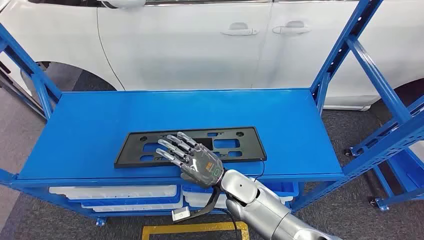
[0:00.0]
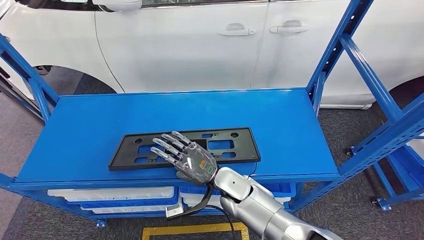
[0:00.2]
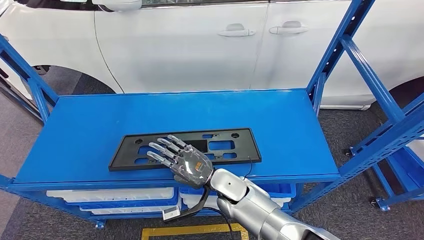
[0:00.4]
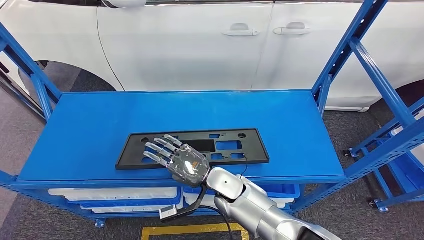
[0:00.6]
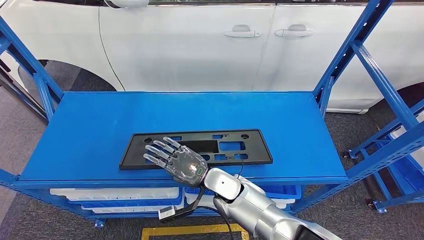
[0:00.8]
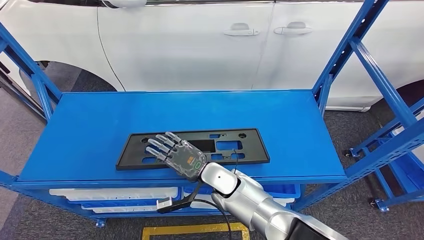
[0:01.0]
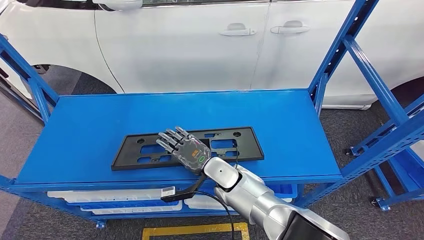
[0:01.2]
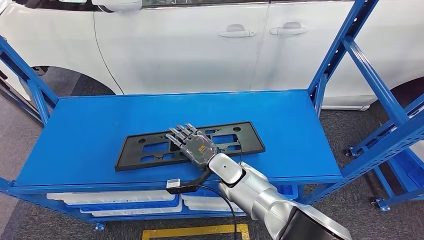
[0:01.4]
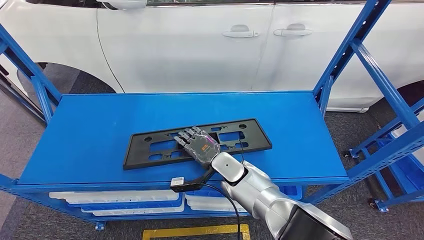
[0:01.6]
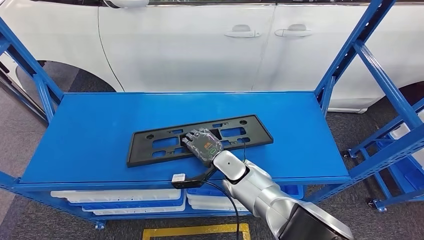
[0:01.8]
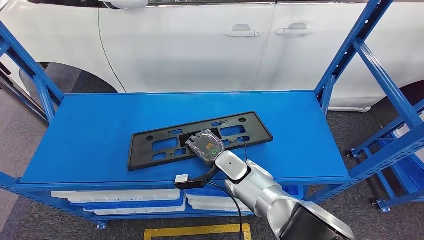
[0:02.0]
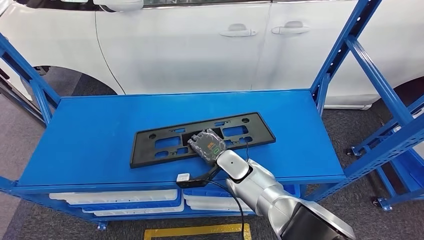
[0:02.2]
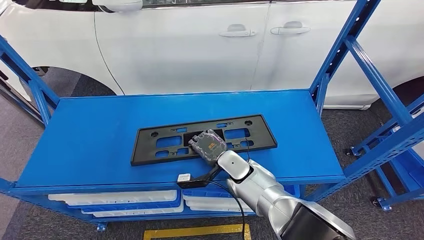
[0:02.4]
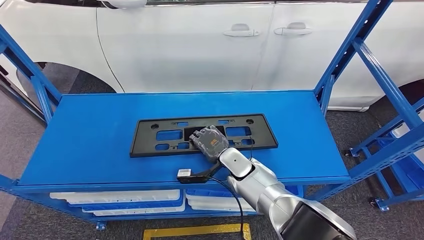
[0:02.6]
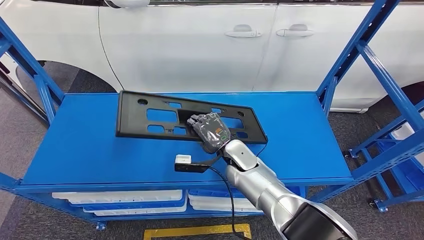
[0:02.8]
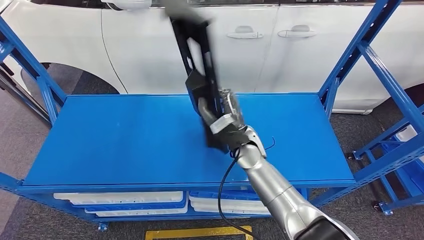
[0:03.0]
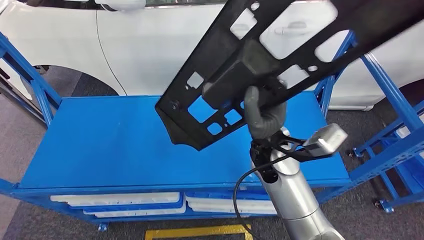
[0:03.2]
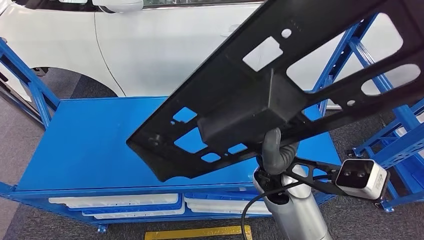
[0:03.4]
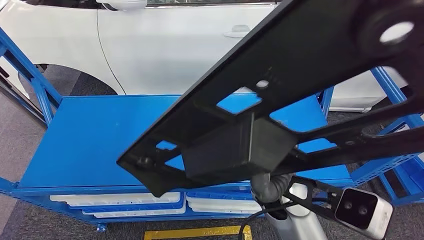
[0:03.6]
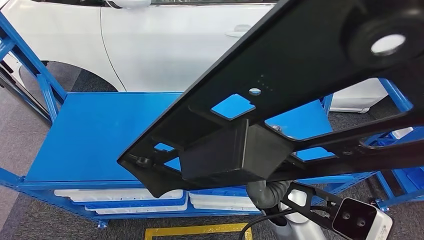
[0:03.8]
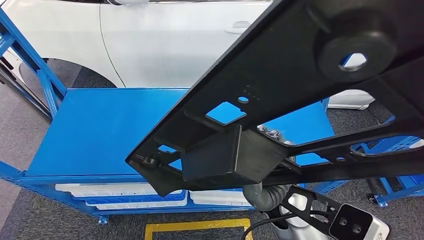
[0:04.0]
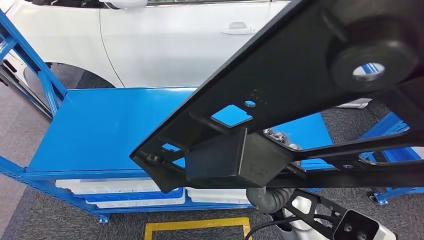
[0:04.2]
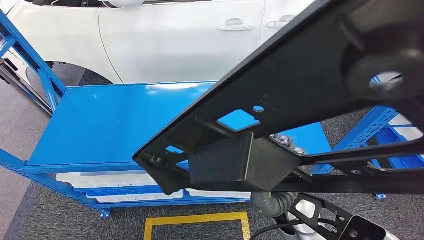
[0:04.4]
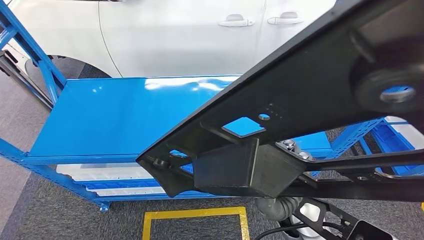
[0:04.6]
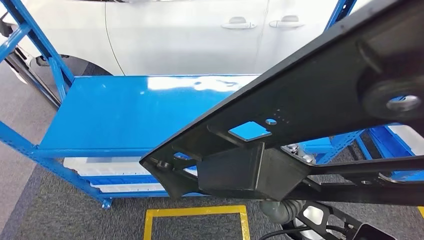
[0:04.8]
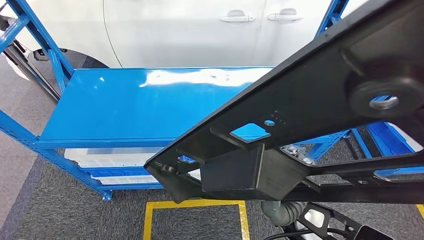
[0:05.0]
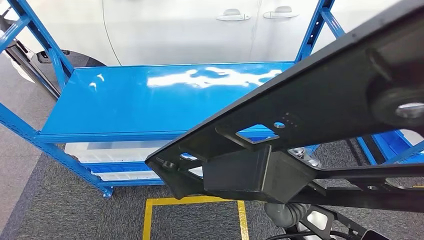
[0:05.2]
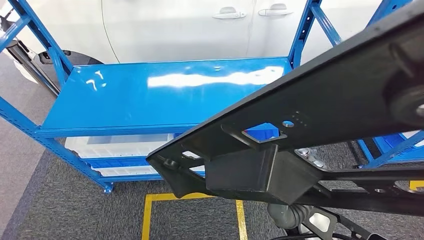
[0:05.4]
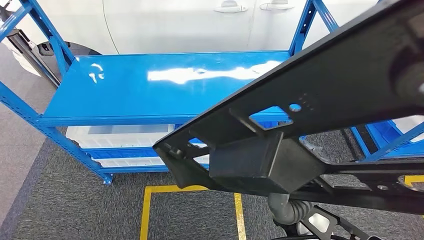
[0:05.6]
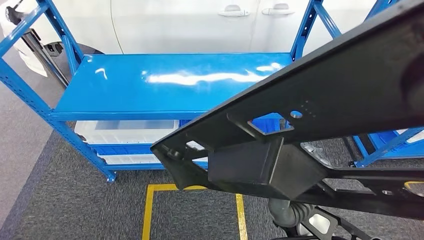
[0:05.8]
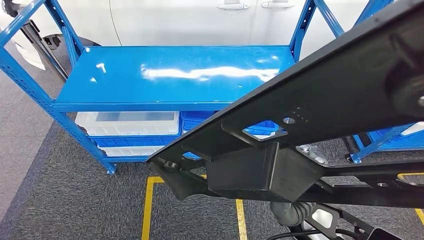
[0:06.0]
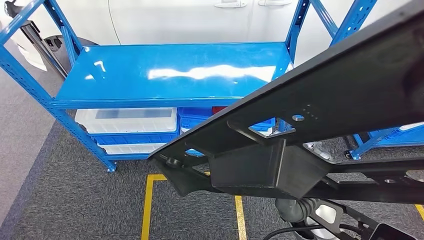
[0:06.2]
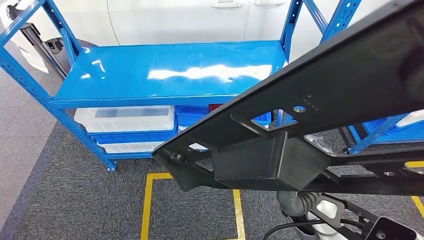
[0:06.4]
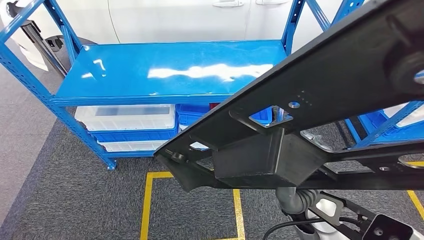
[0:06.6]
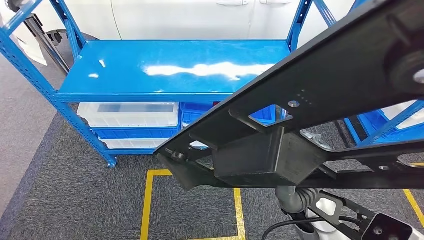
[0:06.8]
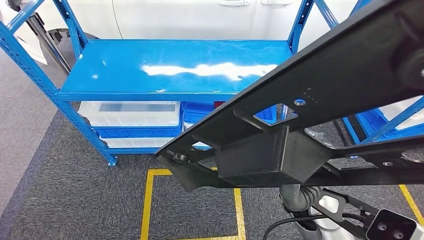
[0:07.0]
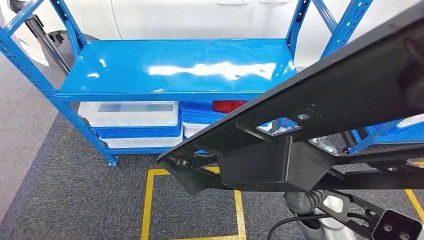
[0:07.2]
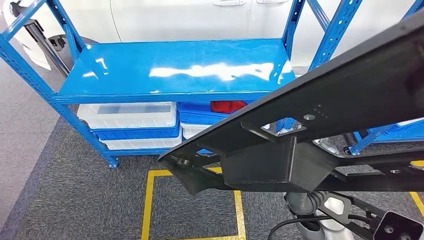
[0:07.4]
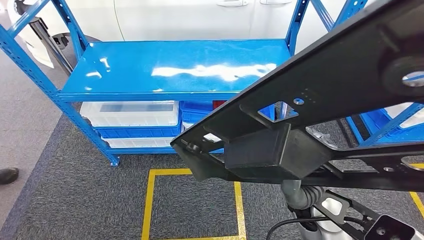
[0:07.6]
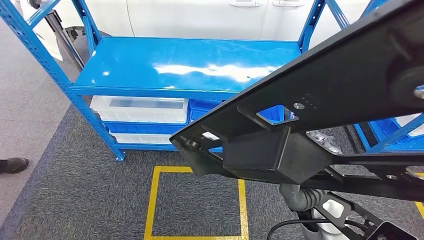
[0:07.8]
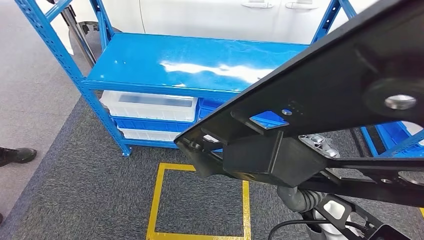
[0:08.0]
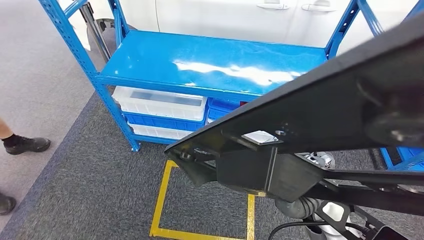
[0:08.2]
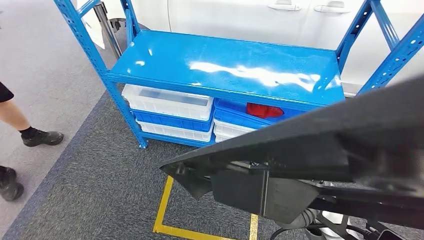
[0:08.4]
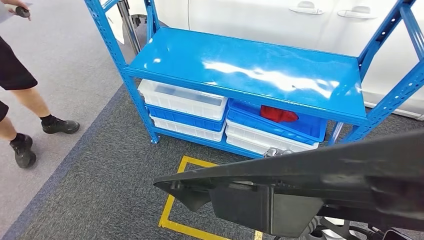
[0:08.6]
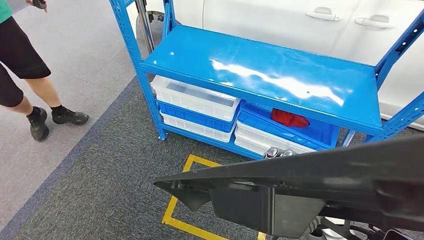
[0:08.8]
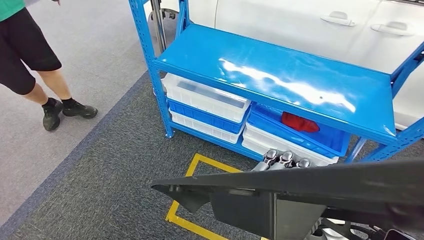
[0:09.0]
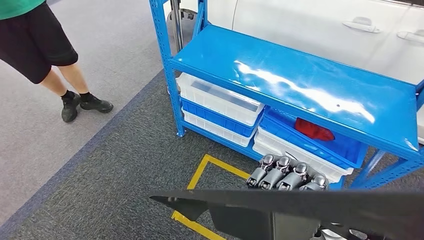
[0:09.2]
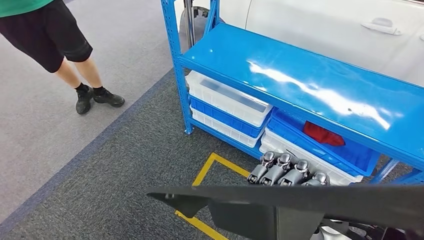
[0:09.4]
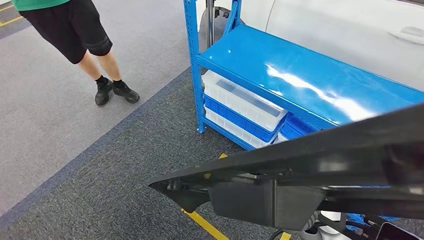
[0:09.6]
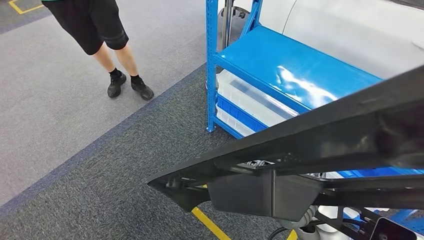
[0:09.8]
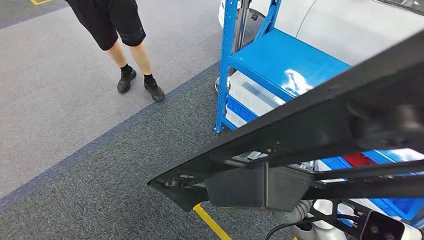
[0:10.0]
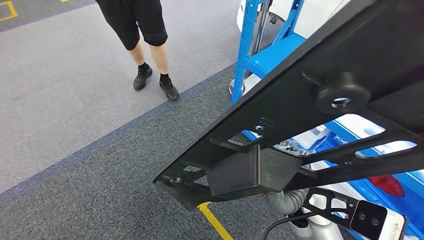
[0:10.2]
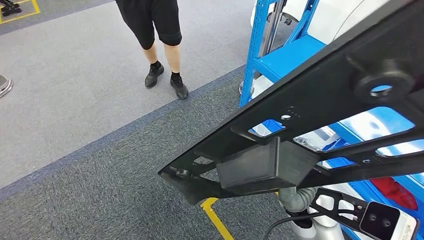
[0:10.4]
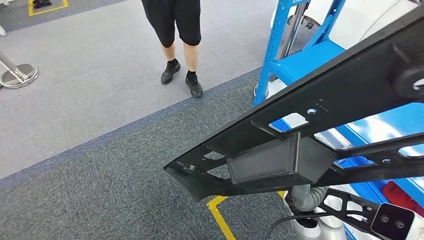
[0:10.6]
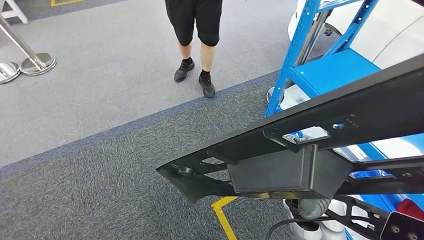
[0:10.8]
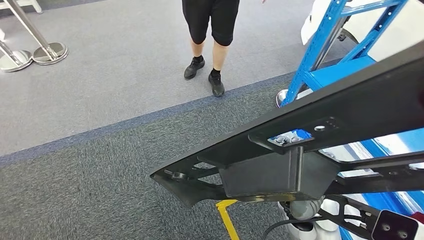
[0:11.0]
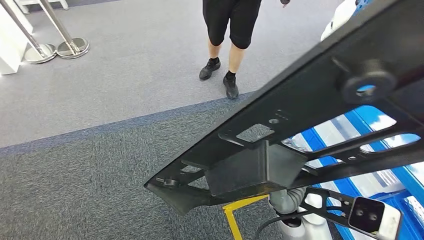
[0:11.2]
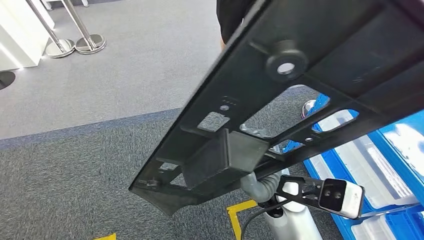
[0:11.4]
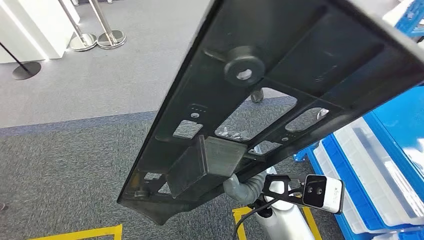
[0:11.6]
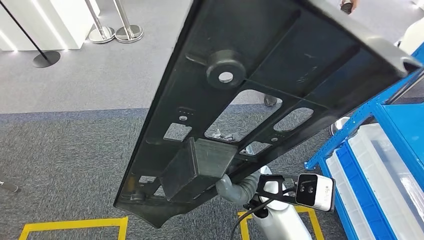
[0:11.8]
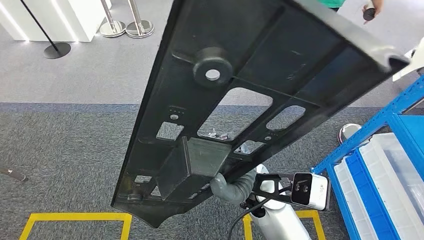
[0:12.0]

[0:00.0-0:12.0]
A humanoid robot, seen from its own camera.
Step, 0:00.0 to 0:03.6: Pick up the large material from the shelf.

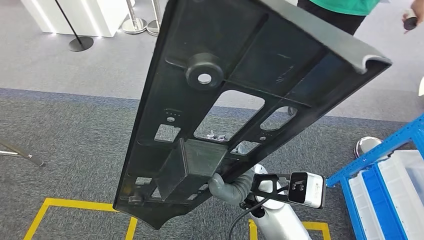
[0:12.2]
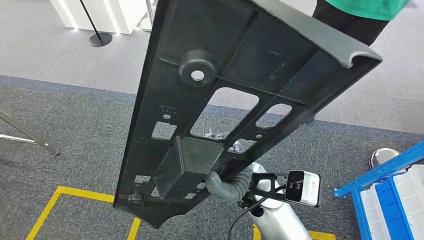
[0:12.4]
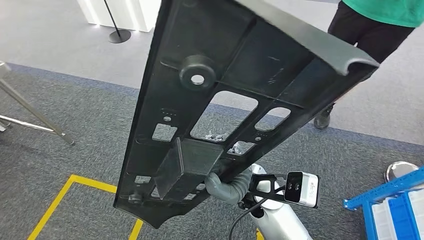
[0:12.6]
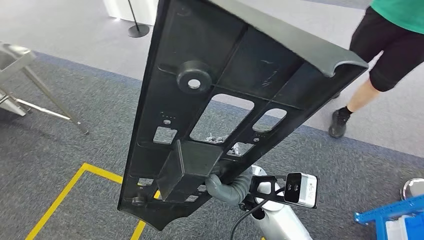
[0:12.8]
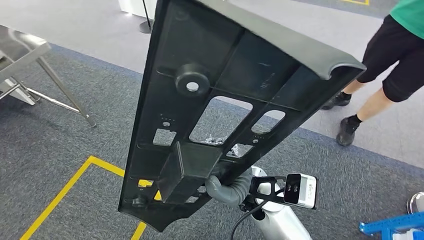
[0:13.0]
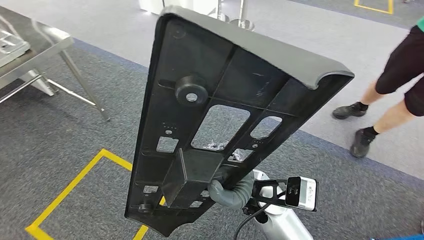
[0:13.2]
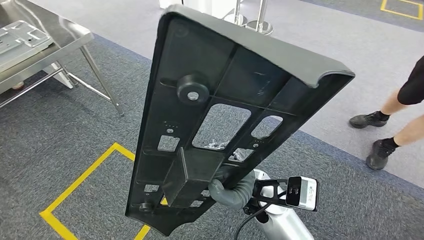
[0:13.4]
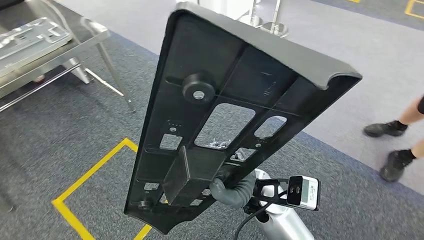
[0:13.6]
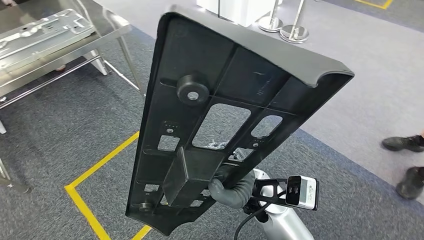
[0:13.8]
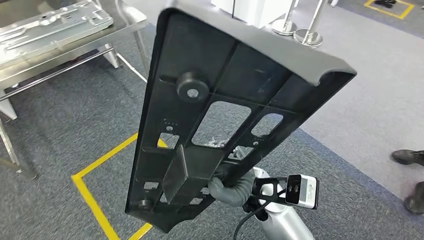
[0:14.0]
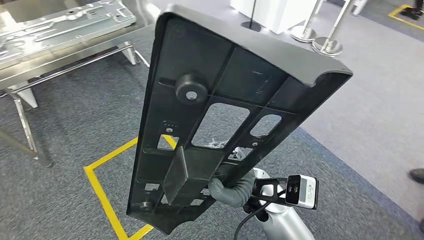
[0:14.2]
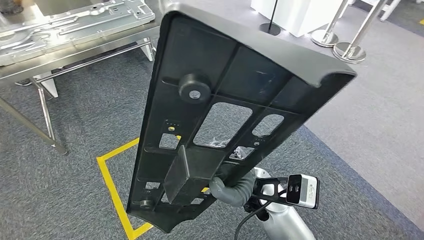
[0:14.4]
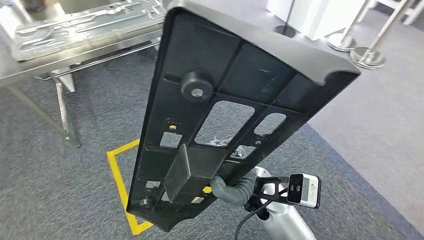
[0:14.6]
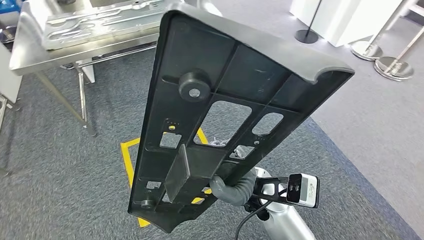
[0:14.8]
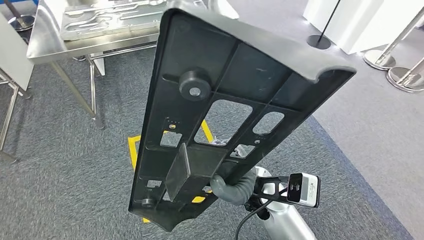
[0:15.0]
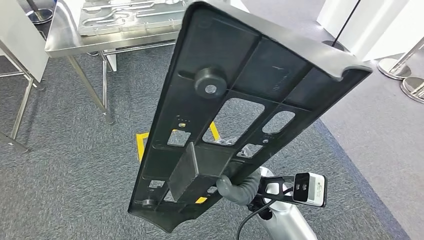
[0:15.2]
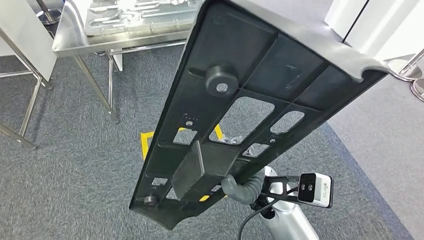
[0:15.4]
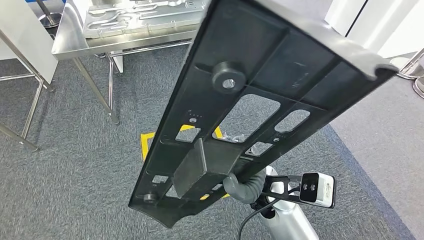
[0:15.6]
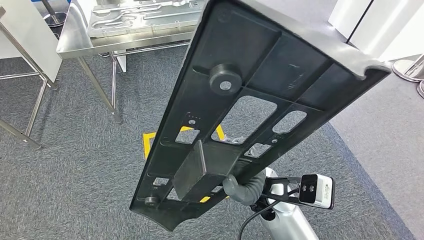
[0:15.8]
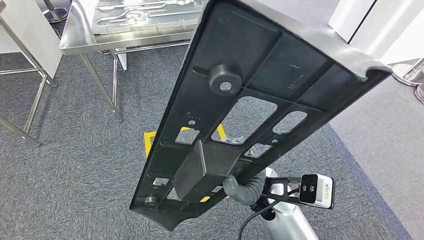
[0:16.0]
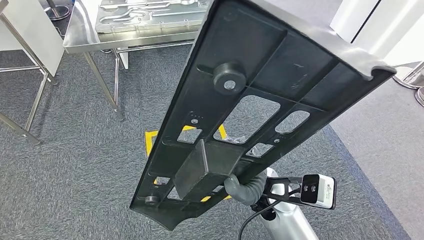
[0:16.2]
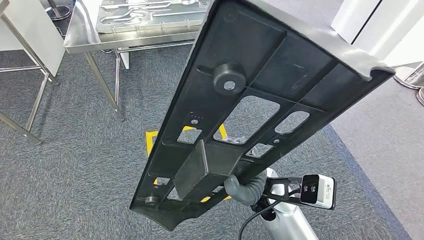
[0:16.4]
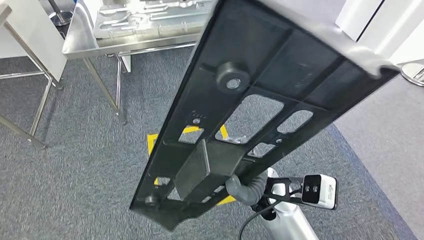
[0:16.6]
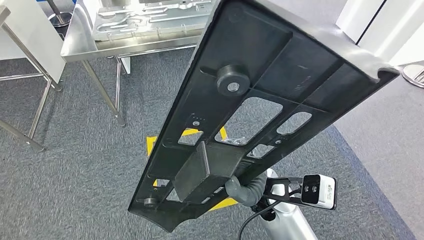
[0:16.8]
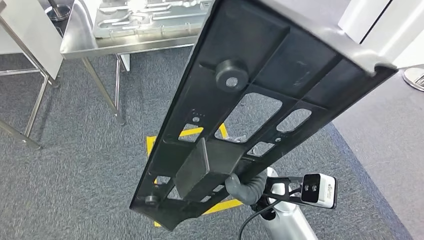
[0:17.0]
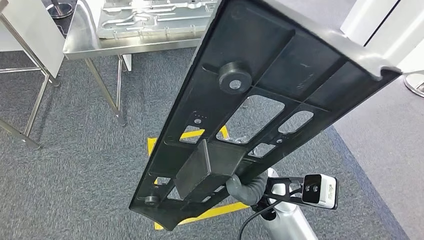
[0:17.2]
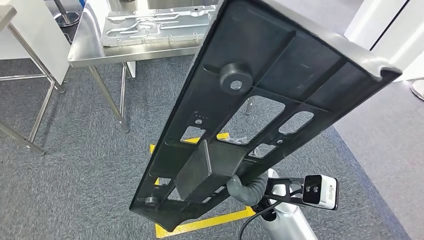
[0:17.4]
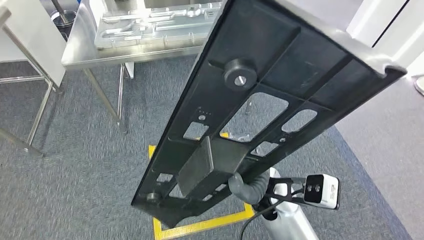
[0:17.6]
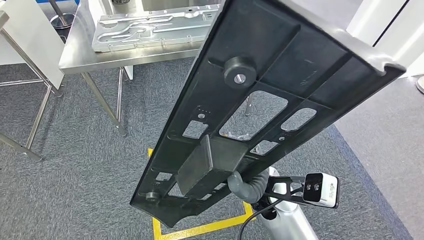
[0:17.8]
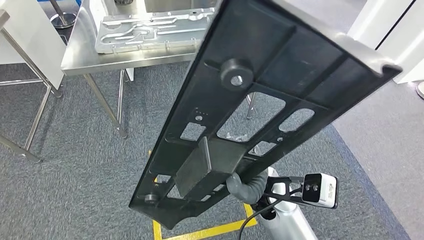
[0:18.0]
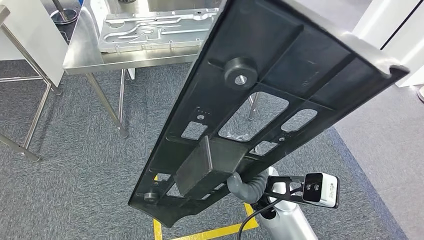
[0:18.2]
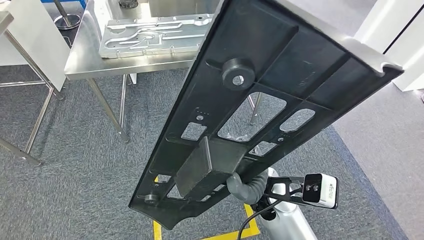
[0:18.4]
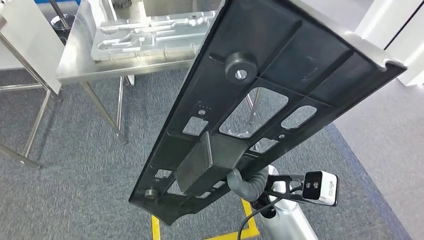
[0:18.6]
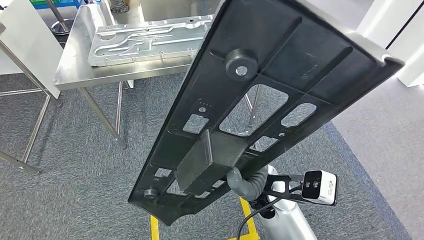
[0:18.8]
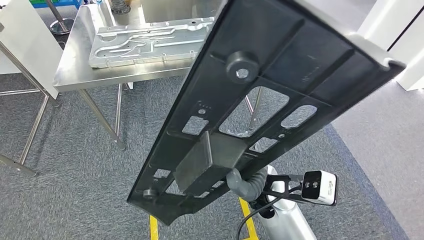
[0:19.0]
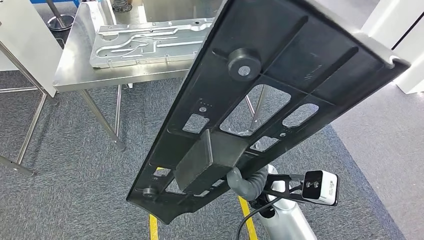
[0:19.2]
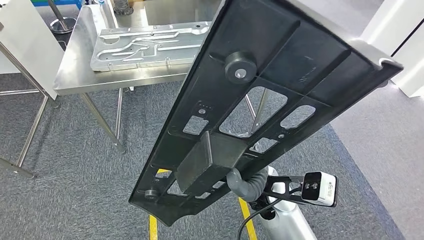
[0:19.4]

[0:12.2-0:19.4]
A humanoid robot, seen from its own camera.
0:16.6 to 0:18.0: Both hands stay put.
